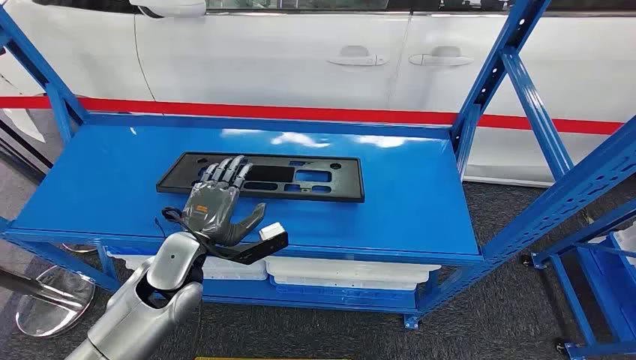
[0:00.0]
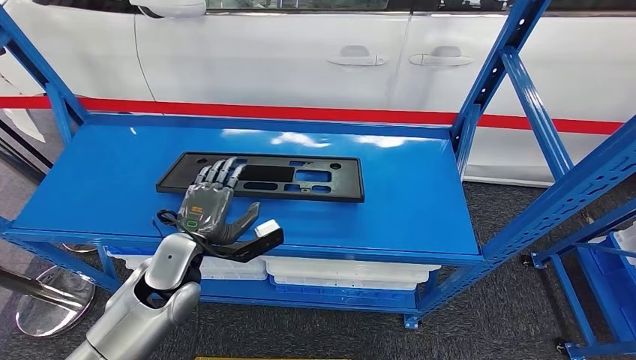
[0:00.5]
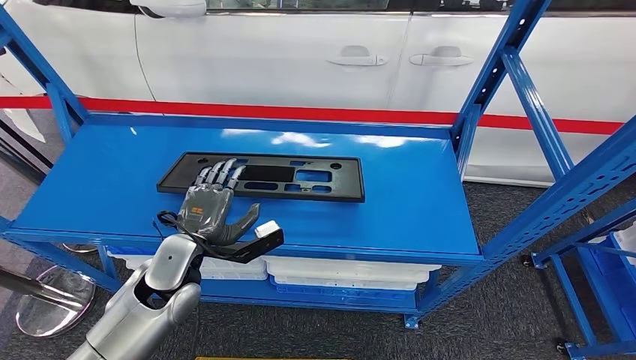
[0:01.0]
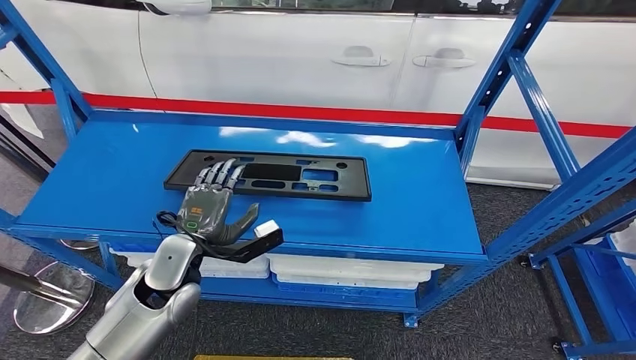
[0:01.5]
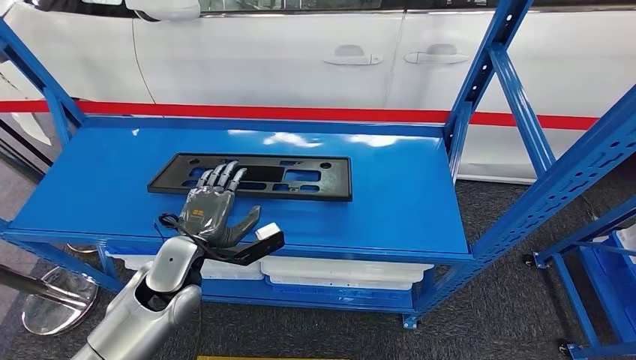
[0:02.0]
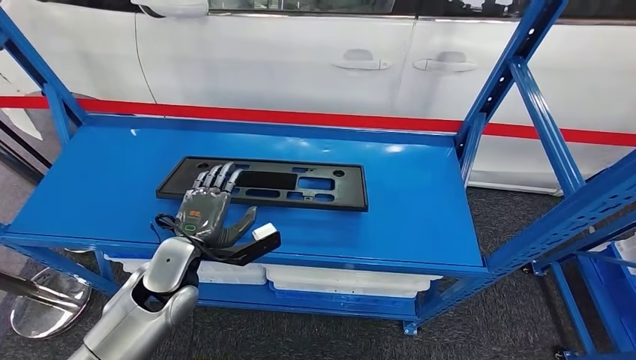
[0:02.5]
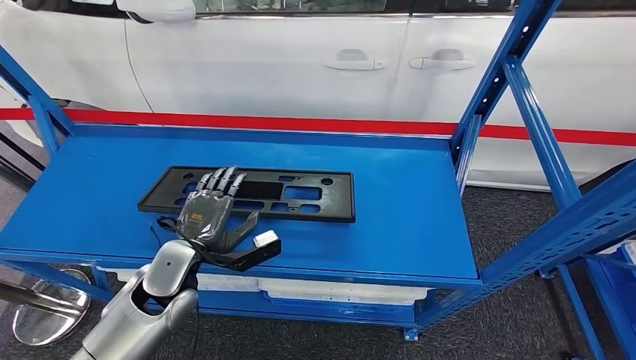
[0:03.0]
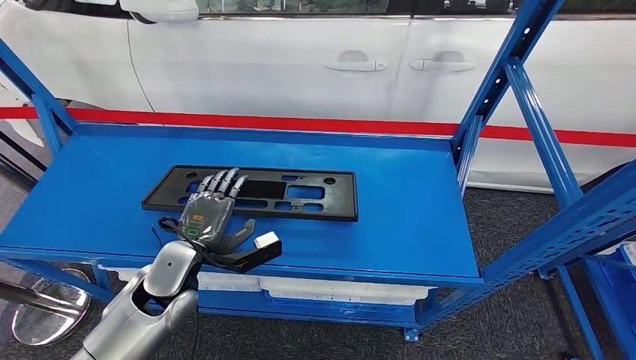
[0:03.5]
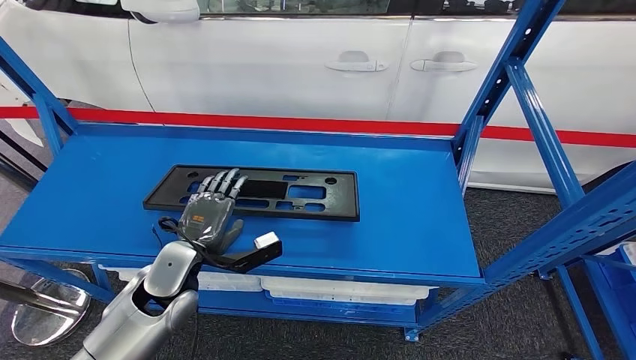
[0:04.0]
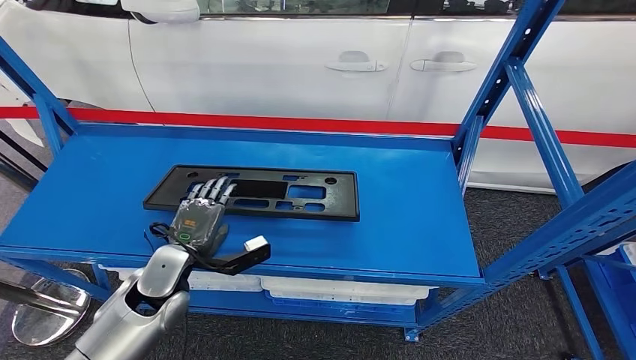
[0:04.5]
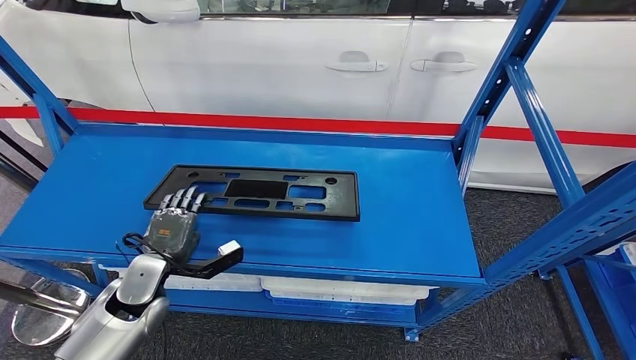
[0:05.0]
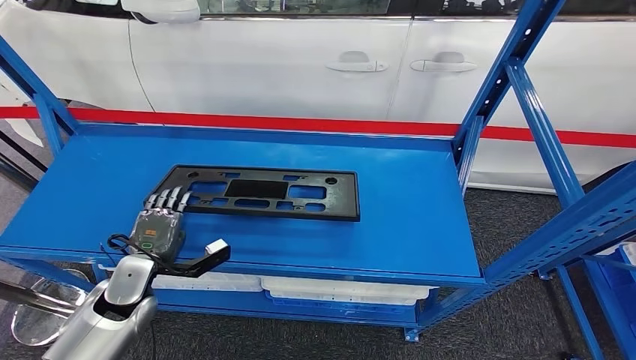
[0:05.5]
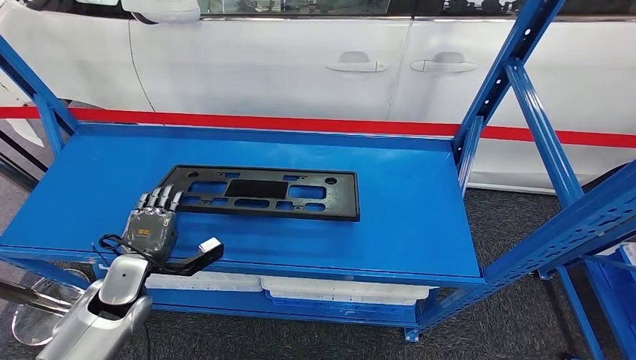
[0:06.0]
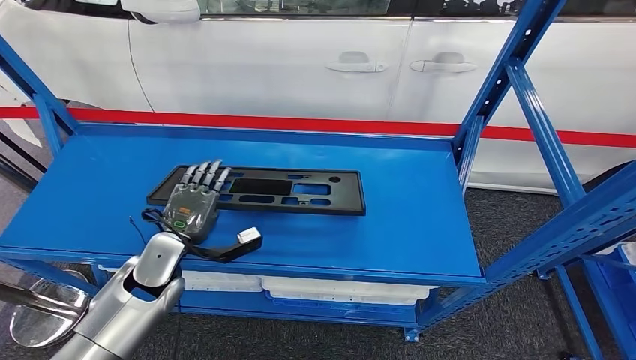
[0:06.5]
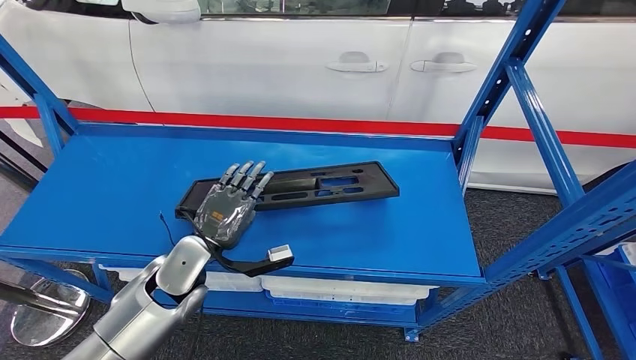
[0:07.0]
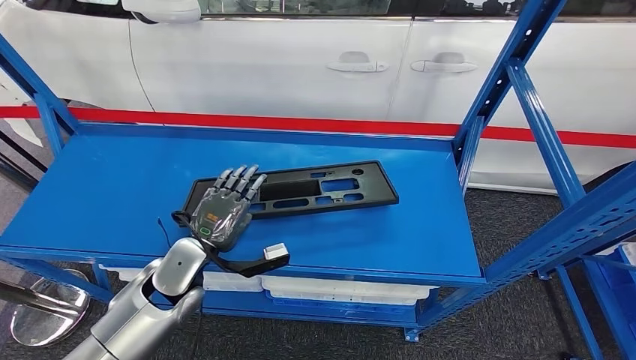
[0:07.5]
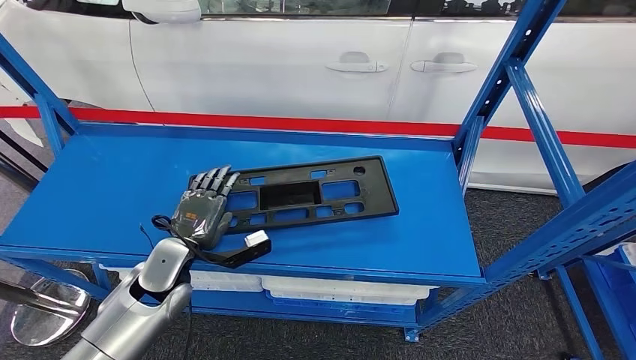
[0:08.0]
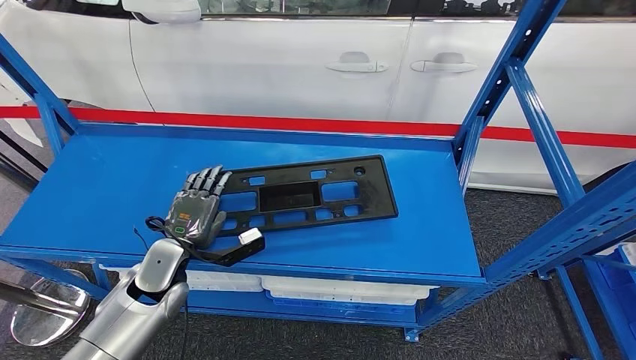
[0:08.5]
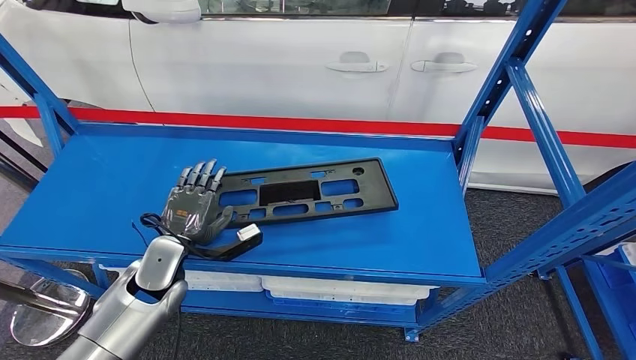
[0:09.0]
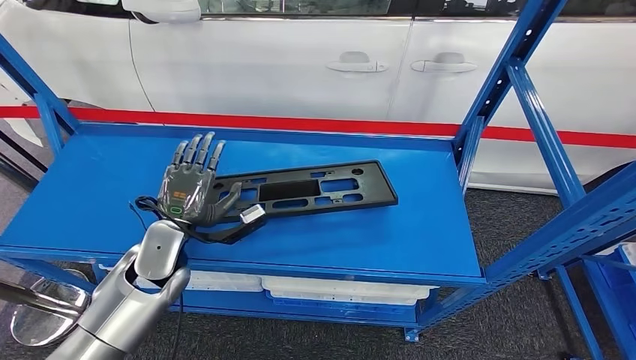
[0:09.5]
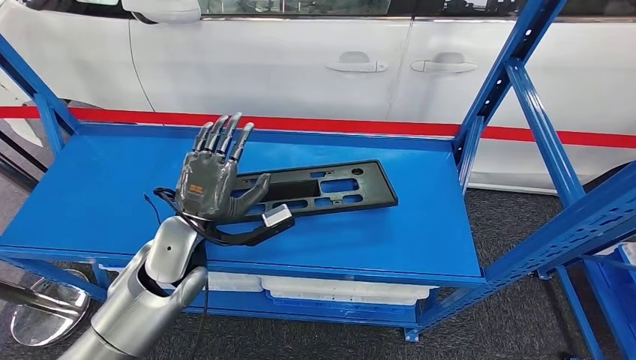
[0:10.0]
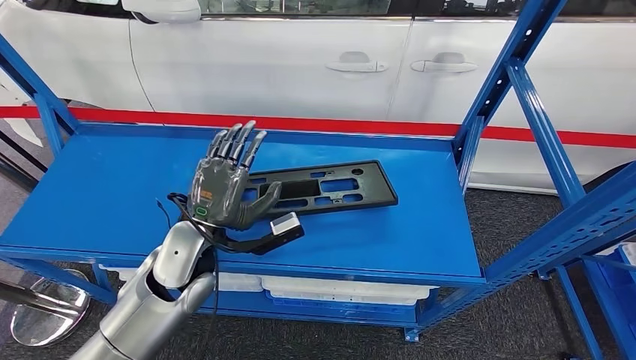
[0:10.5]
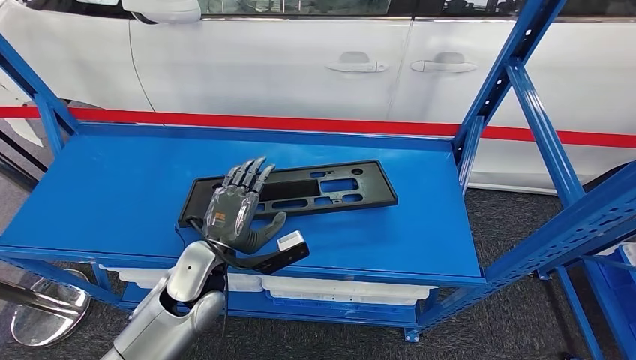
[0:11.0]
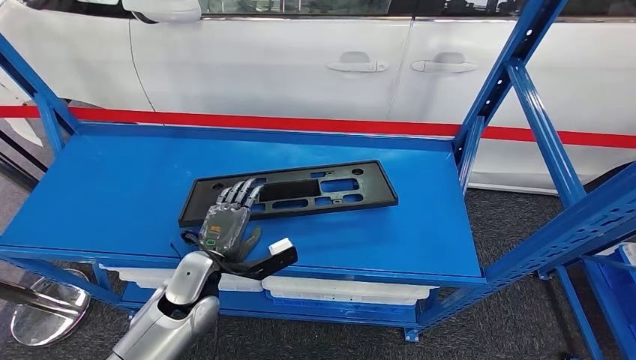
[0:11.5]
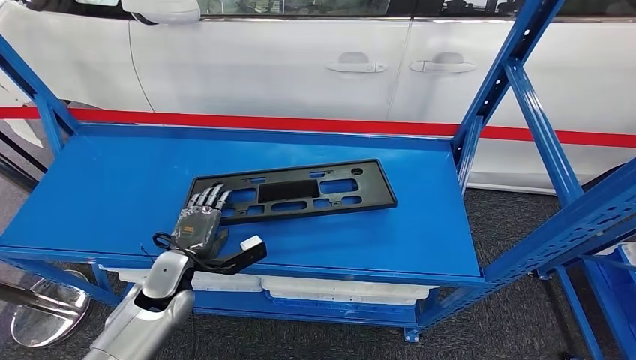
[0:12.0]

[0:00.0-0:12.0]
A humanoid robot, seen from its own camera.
0:04.0 to 0:06.0: The left hand shifts approximately 10 cm to the left and downward.
0:06.0 to 0:08.0: The left hand is displaced to the right by approximately 10 cm.
0:08.0 to 0:10.0: The left hand shifts roughly 10 cm upward.
0:10.0 to 0:12.0: The left hand shifts approximately 15 cm downward and to the left.

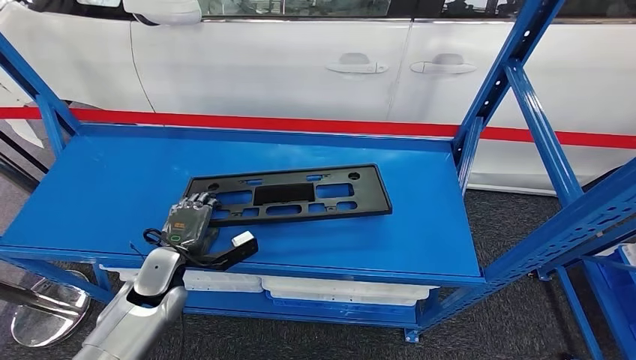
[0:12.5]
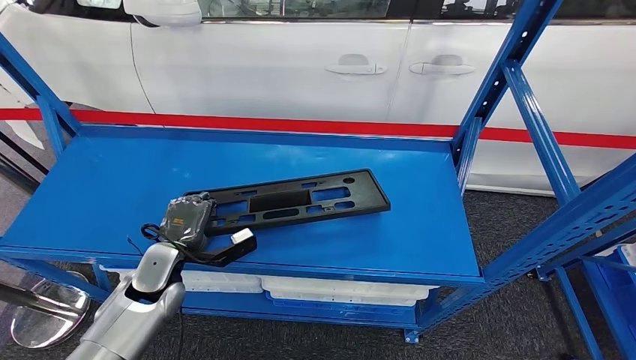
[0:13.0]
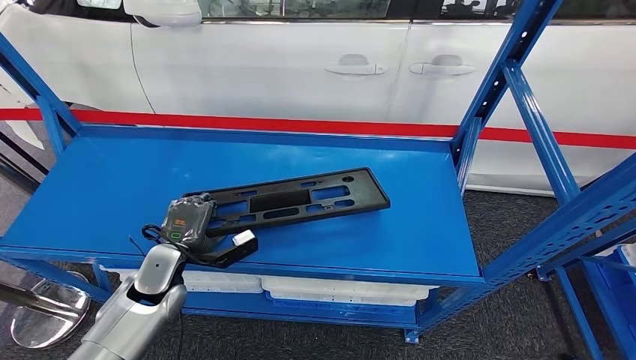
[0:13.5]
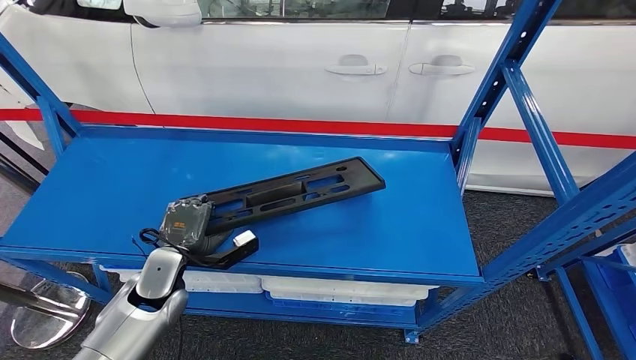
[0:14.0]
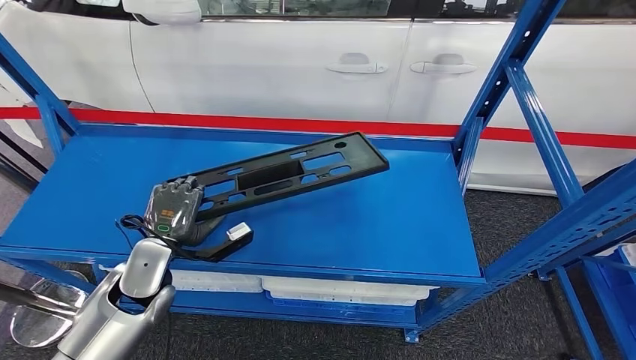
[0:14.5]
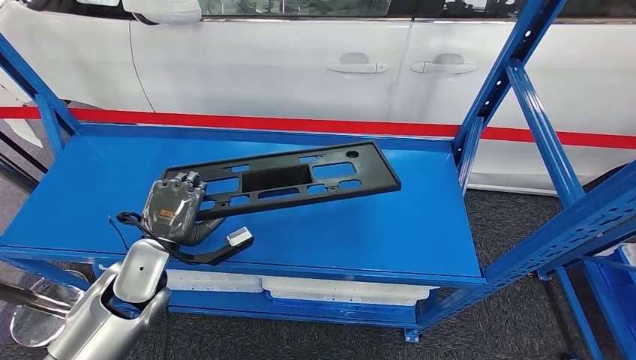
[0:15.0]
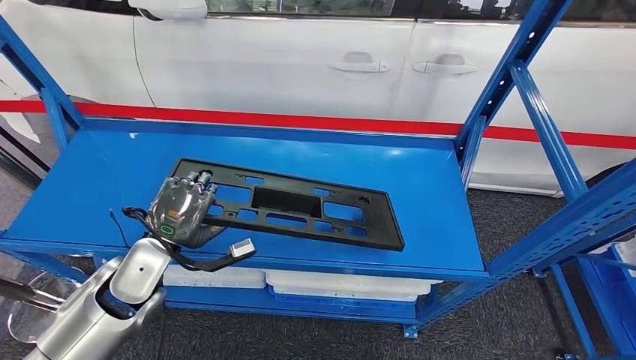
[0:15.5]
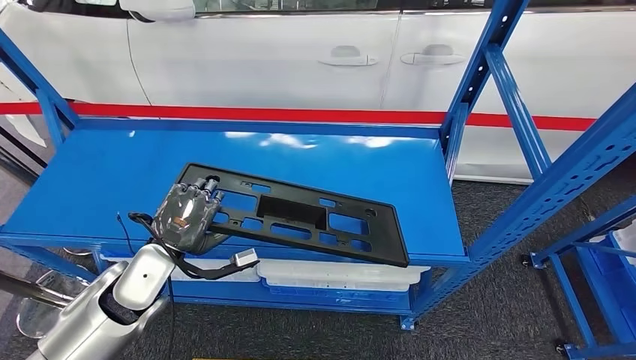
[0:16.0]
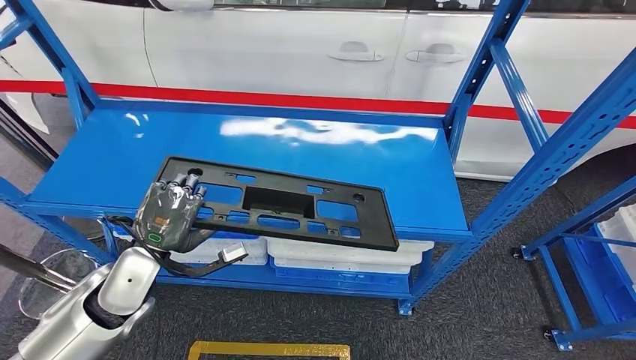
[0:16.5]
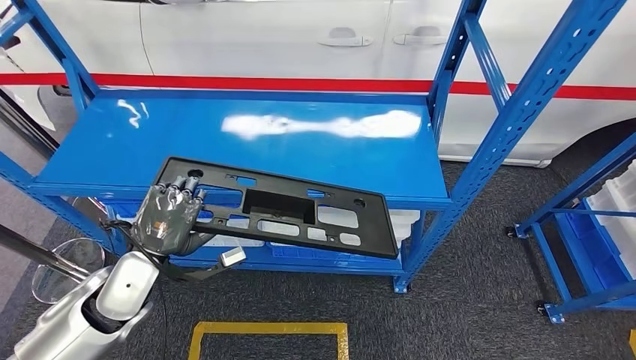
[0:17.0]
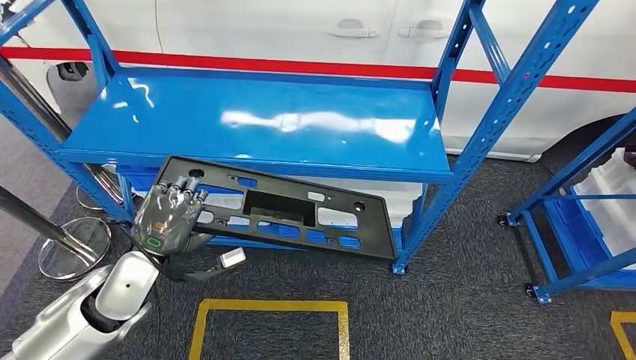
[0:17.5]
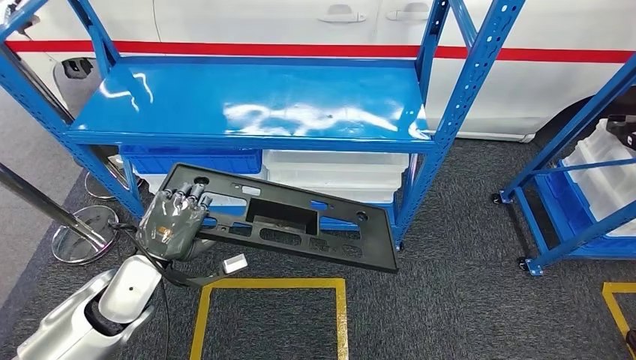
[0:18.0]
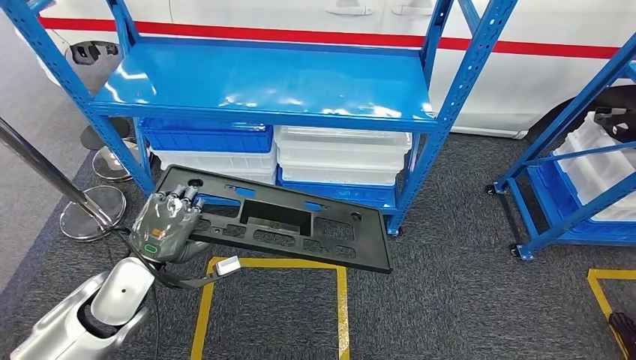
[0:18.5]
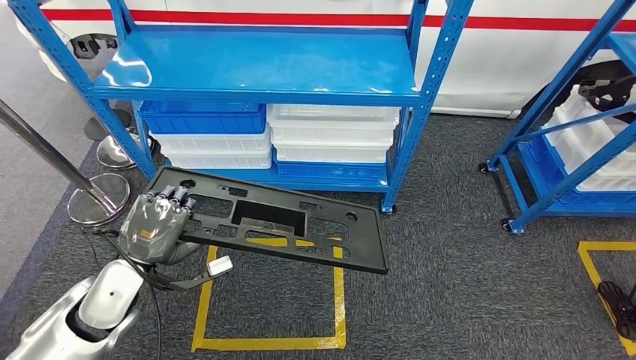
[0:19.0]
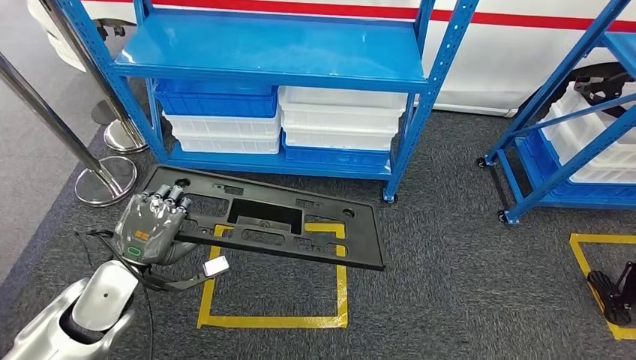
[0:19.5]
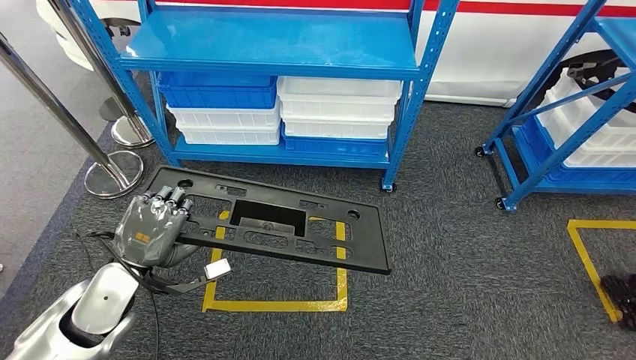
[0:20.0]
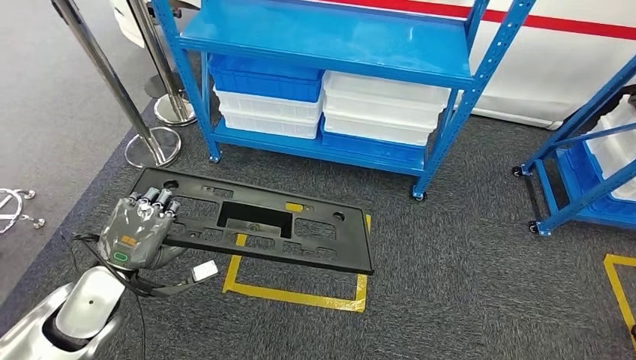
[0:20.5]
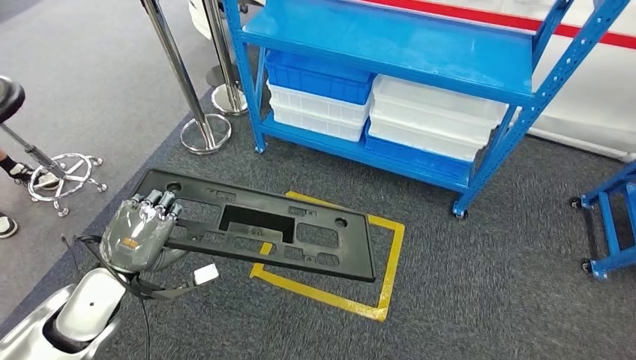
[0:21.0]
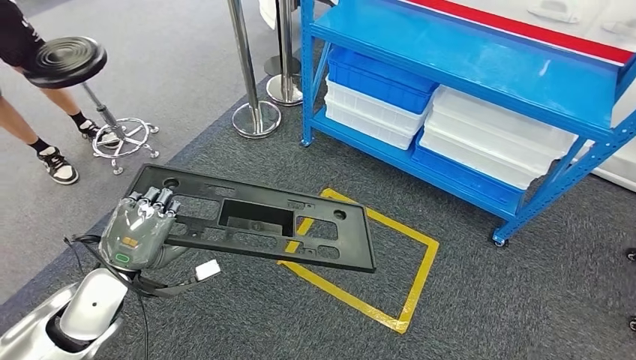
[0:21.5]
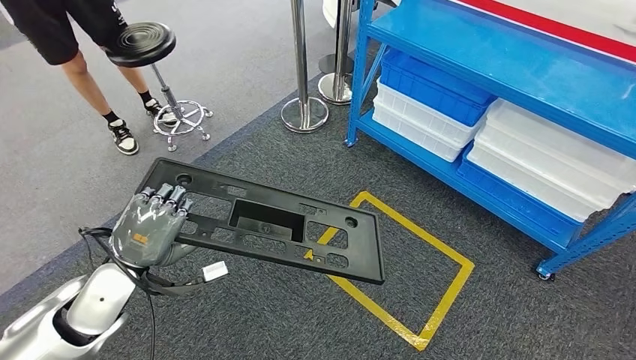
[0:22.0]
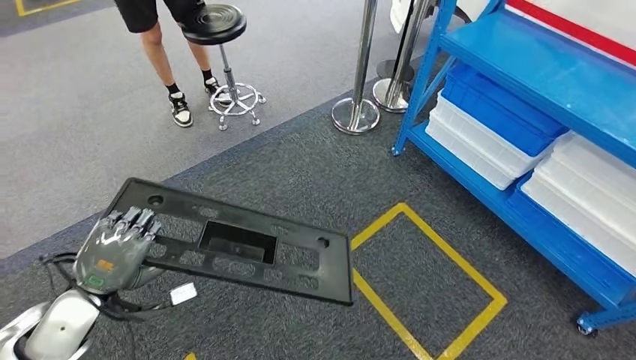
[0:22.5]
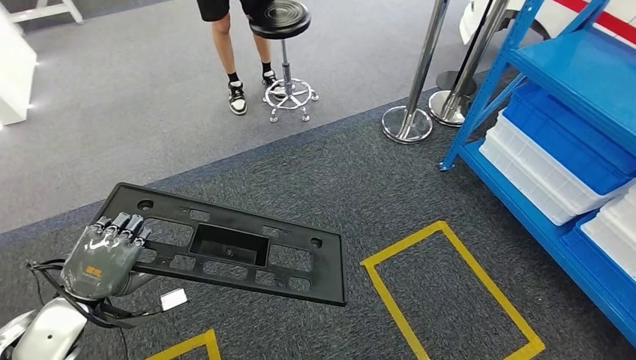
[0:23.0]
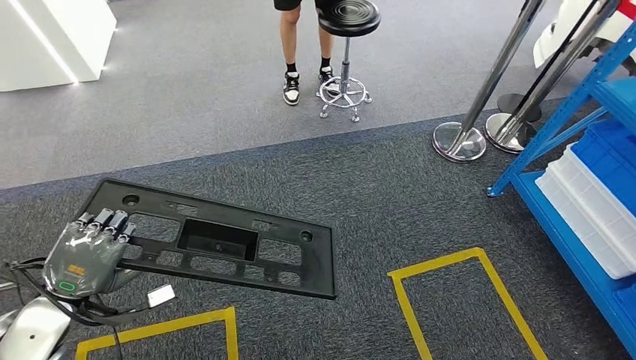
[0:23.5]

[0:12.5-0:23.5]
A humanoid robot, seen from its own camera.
Step, 0:12.5 to 0:19.0: Pick up the large material from the shelf.
0:12.5 to 0:14.5: The left hand goes some 5 cm upward.
